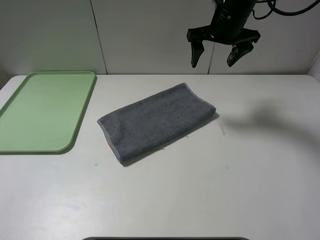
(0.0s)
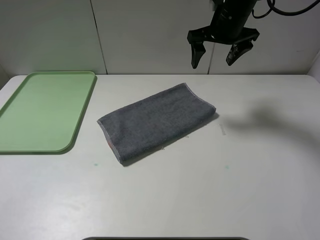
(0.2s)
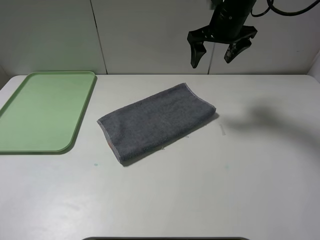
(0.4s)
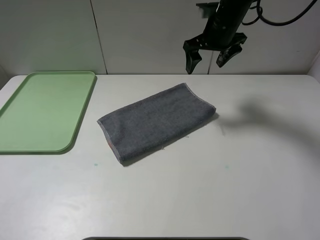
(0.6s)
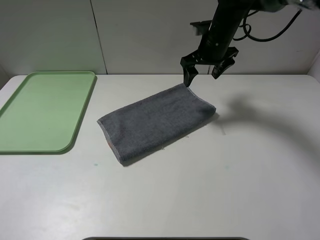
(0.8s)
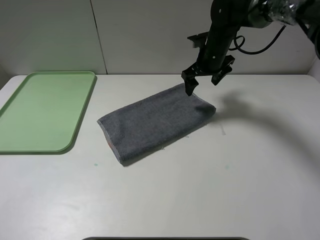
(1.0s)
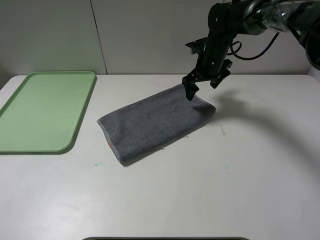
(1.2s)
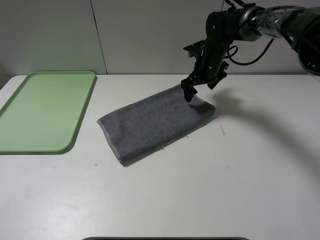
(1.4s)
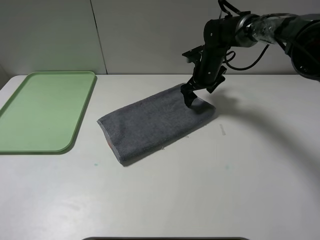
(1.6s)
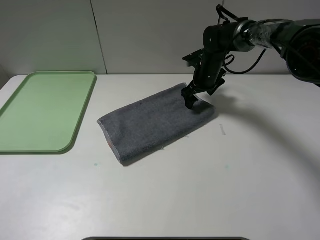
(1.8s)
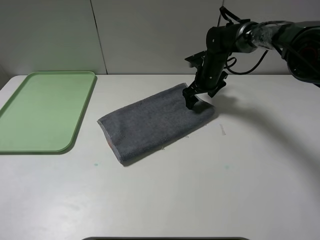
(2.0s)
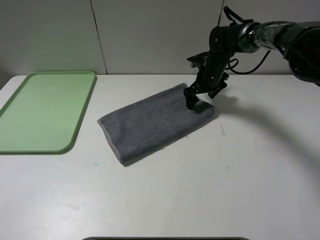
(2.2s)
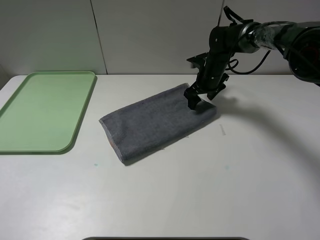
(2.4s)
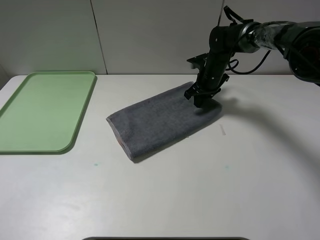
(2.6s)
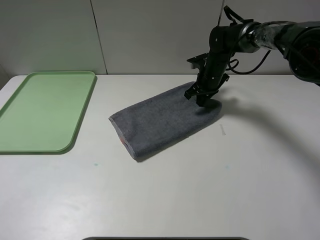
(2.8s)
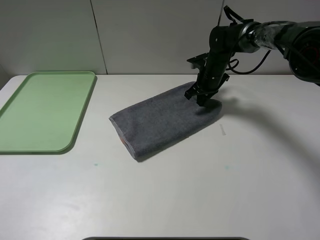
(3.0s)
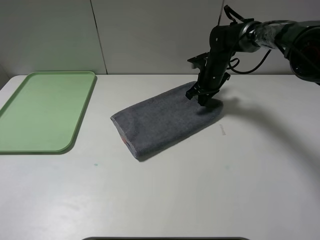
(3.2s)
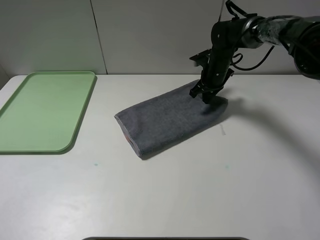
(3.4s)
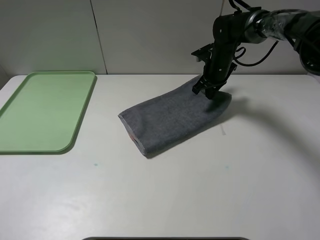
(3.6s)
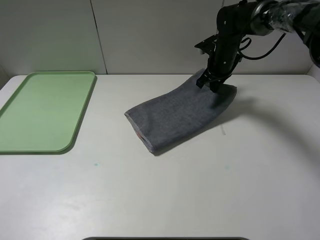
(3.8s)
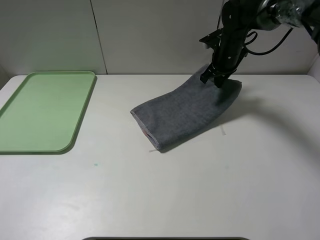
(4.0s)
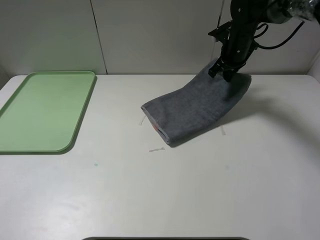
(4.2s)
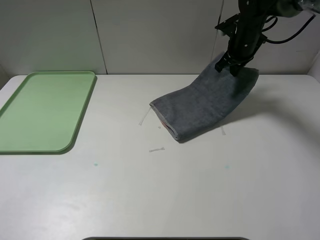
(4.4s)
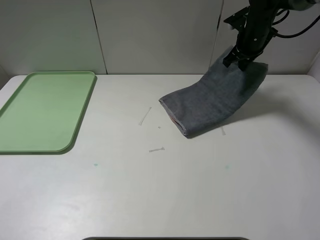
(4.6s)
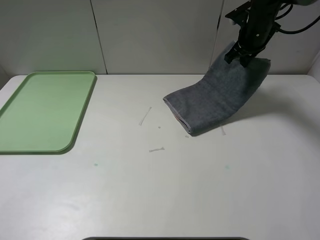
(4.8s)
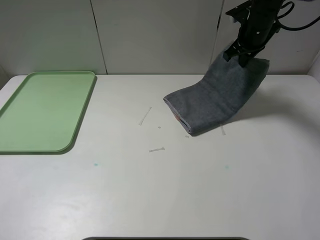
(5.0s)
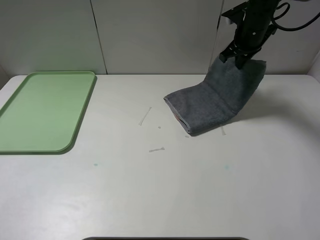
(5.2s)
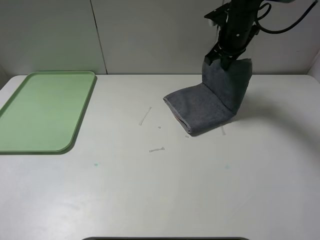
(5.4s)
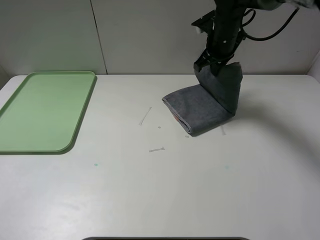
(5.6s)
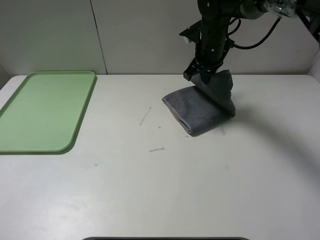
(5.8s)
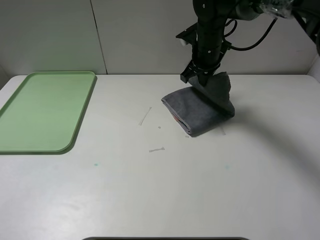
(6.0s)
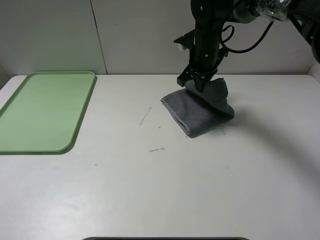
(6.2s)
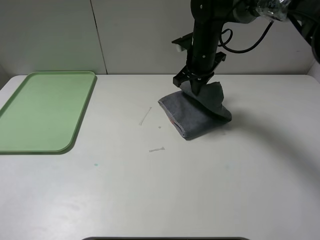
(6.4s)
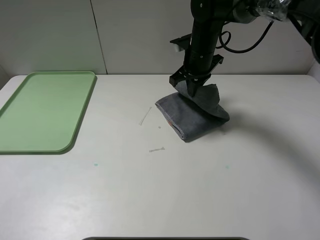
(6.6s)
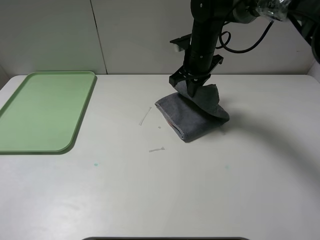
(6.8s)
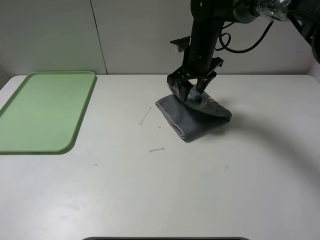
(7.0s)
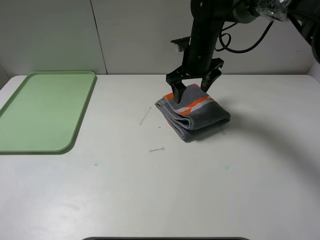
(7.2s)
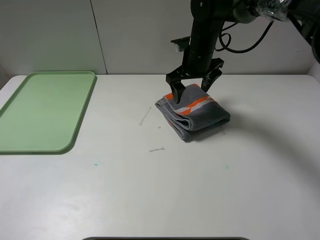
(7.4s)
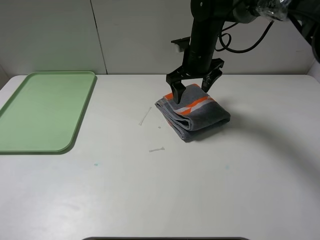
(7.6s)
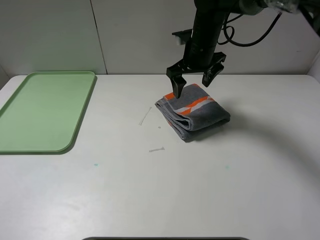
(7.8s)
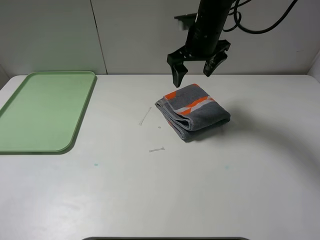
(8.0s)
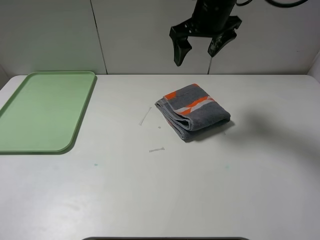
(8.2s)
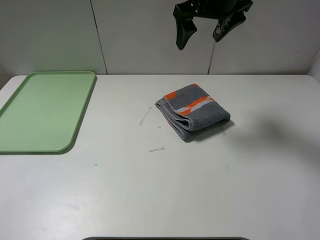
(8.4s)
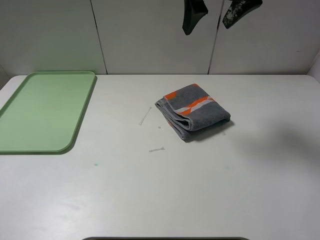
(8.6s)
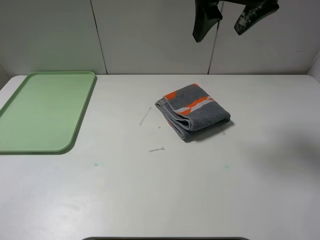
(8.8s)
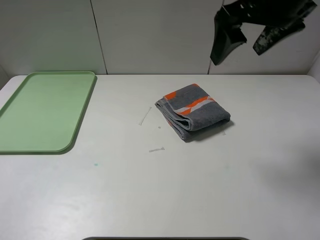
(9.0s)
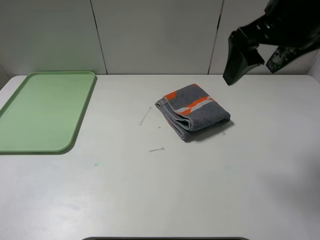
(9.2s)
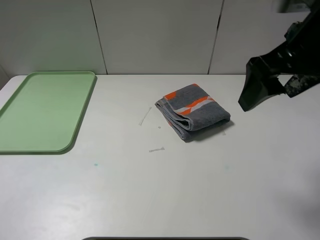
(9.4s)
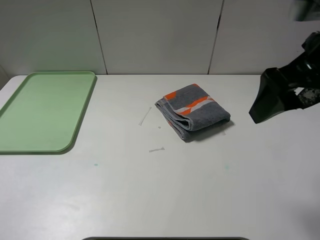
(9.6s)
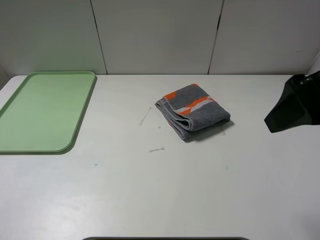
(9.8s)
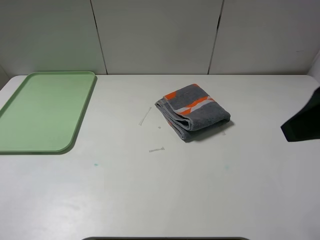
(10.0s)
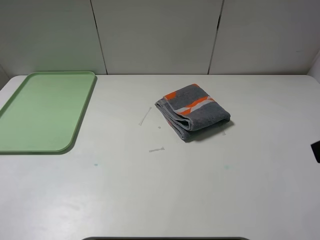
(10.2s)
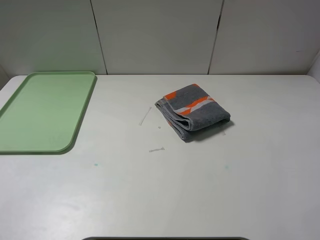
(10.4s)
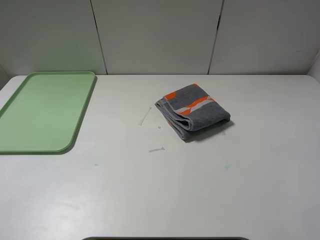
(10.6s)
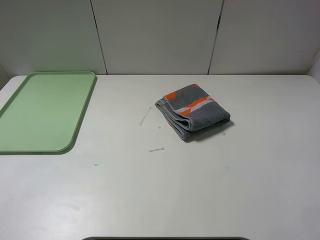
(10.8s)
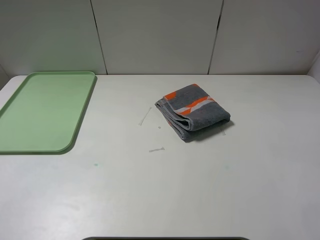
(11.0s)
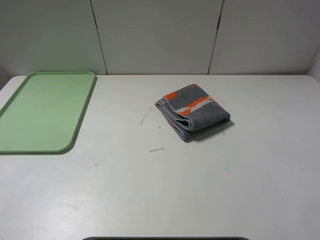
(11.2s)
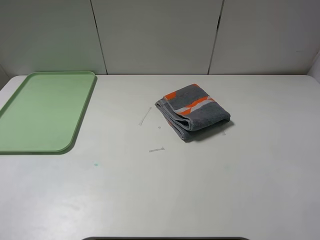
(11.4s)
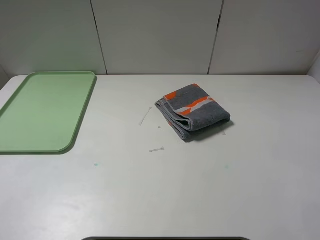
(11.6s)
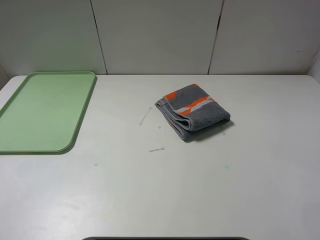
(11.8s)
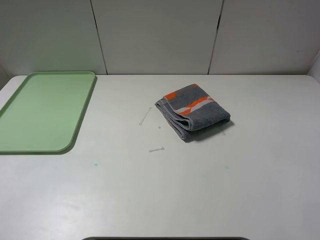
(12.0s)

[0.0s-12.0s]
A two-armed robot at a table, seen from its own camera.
Step, 0.0s to 7.0s: Fold the grey towel from right to left with right gripper.
0.0s to 1.6s: The right gripper shifts some 15 cm downward.
1.6s to 3.0s: The right gripper closes.
3.0s to 4.4s: The right gripper heads upward and to the right, covering some 10 cm.
4.4s to 6.0s: The right gripper moves to the left, some 10 cm.
6.0s to 7.6s: The right gripper opens.
7.6s to 9.0s: The right gripper travels upward and backward by some 20 cm.
9.0s to 10.4s: The right gripper is displaced backward and to the right by about 25 cm.

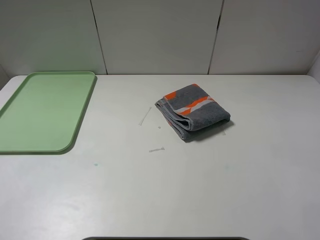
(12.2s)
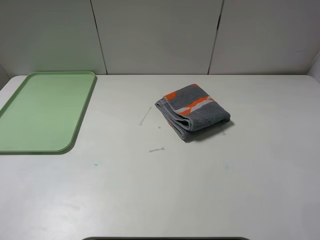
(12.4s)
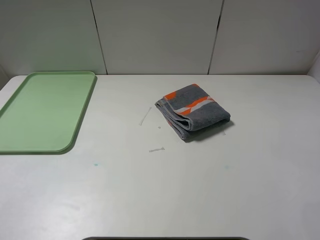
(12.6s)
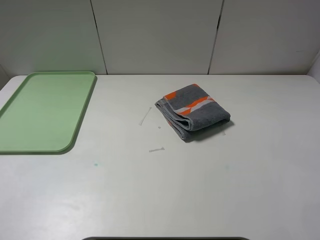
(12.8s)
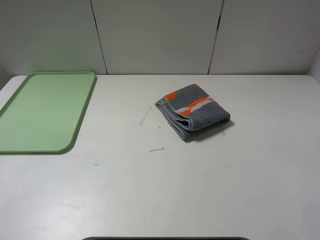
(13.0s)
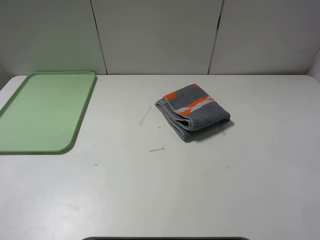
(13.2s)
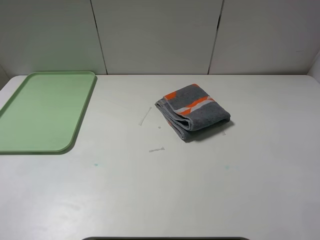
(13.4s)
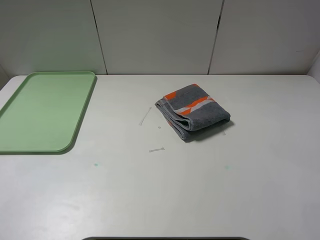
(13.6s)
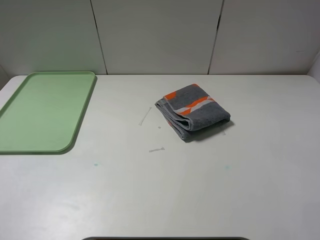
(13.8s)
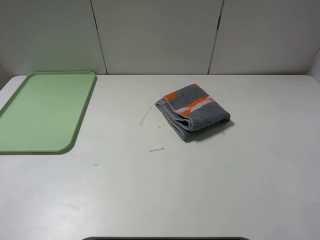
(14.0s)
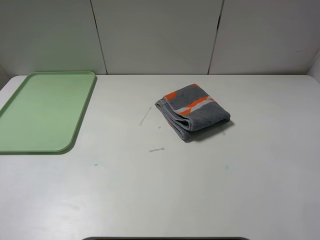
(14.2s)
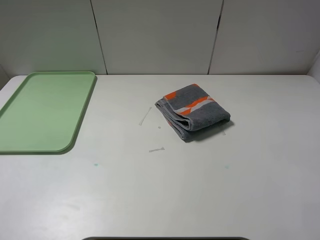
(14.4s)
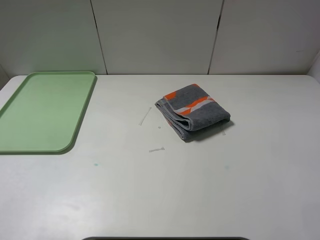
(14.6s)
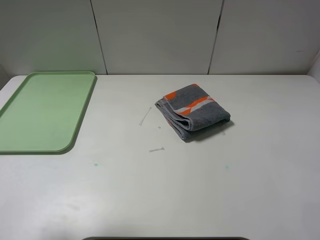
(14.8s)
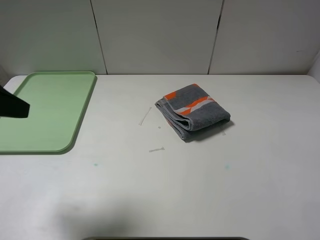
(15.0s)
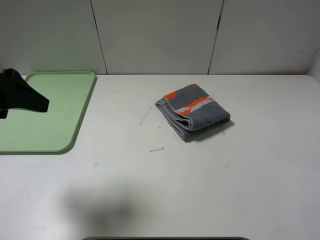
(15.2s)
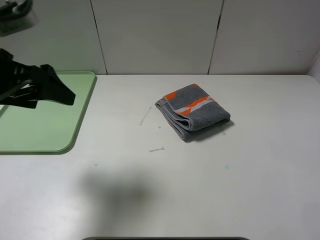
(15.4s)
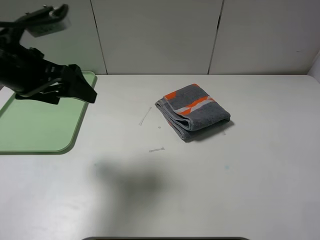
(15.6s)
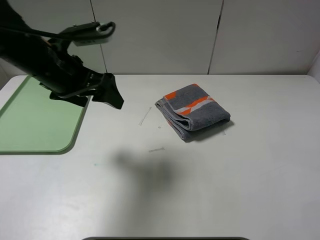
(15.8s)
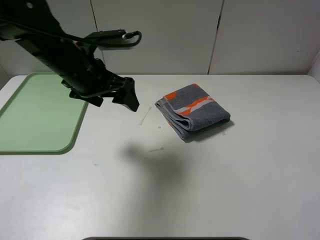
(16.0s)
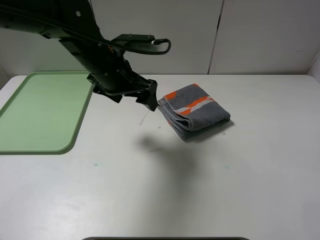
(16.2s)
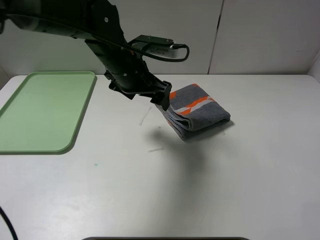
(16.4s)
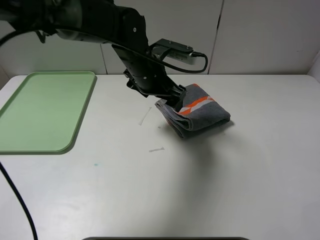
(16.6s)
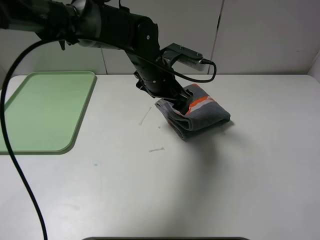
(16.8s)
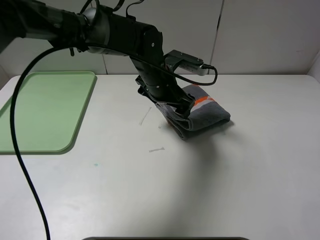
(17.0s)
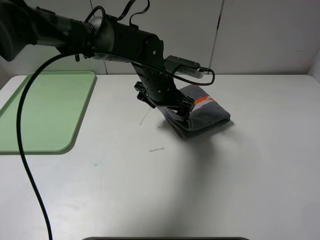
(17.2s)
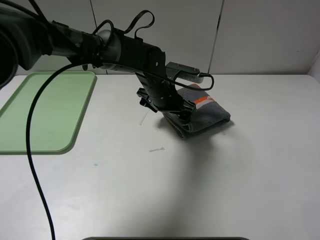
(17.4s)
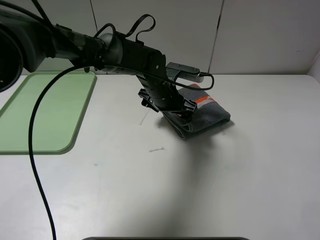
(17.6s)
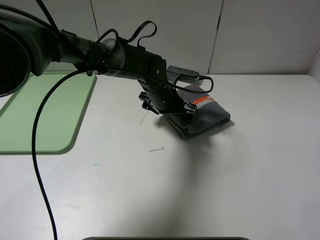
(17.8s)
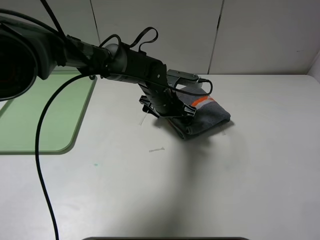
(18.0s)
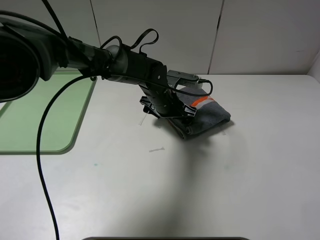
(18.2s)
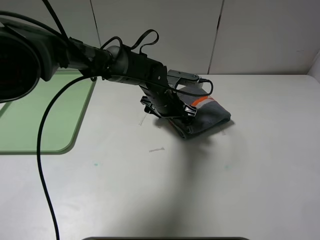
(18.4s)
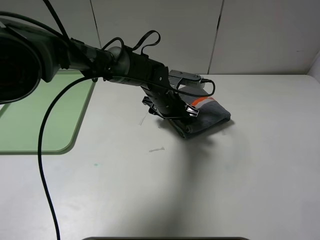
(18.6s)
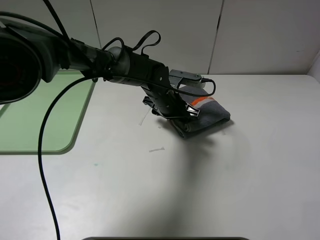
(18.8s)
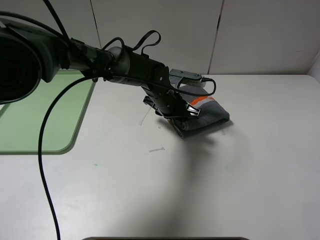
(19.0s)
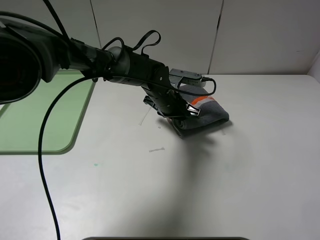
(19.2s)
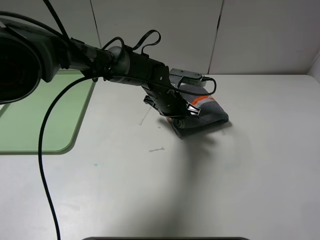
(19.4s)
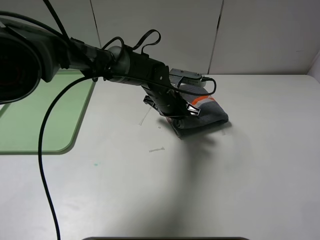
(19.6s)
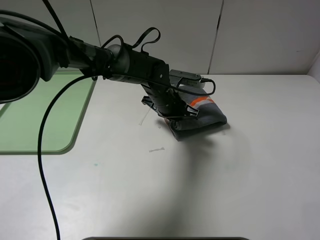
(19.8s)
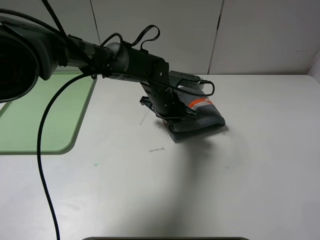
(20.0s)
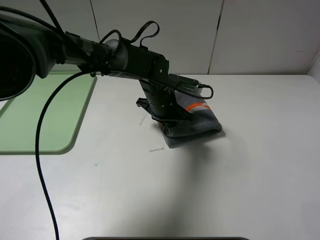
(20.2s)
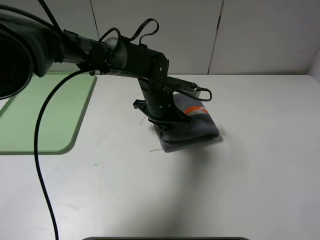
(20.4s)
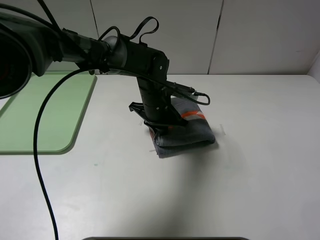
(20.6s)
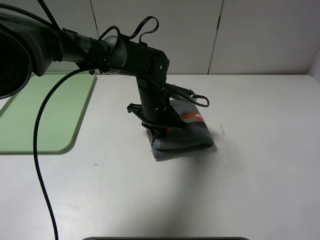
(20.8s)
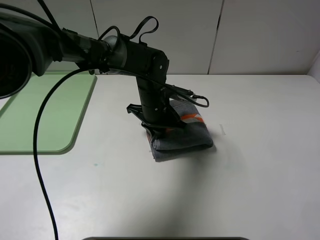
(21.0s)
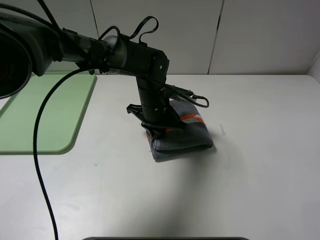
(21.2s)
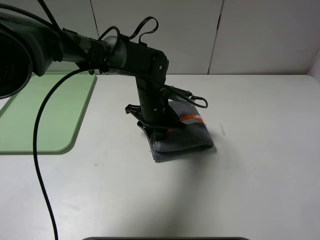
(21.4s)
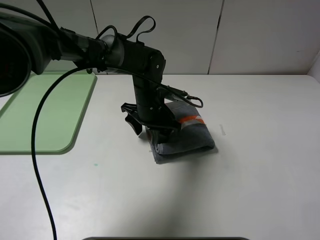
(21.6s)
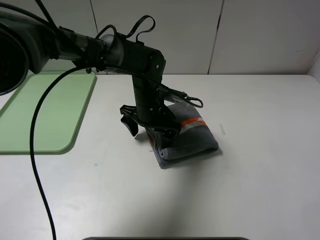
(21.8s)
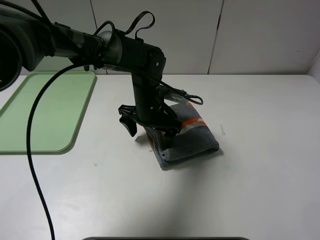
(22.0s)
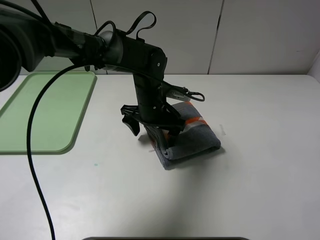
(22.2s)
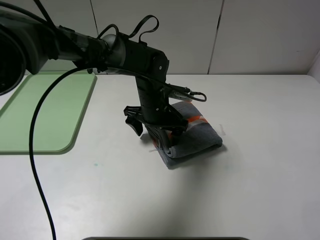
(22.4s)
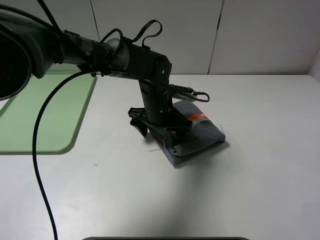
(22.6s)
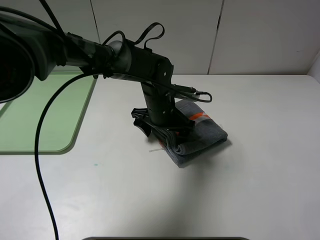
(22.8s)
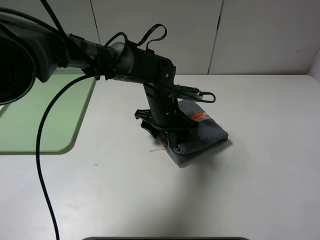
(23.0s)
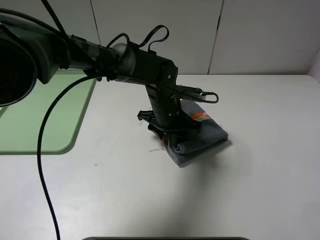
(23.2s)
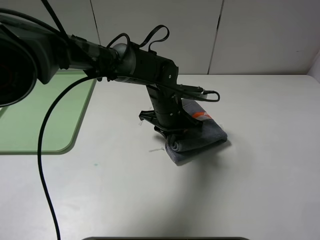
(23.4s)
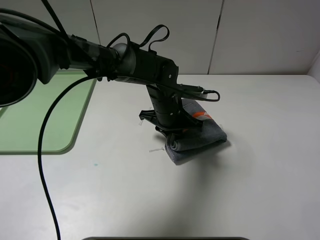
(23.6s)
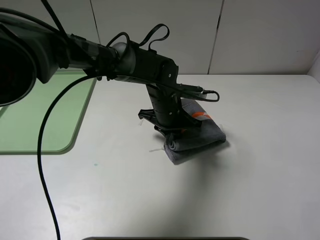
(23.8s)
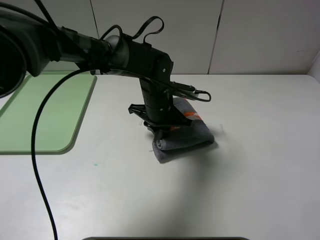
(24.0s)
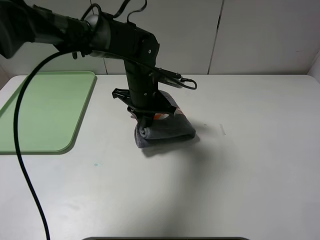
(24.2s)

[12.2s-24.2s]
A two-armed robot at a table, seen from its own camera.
12.2s to 13.8s: Both grippers stay about where they are.
13.8s to 15.2s: The left gripper is displaced forward by about 20 cm.
15.2s to 16.6s: The left gripper moves to the right and forward, approximately 30 cm.
16.6s to 18.2s: The left gripper goes some 10 cm downward.
18.2s to 19.8s: The left gripper closes up.
21.2s to 22.6s: The left gripper opens.
22.6s to 24.2s: The left gripper shifts by about 5 cm, and closes.
